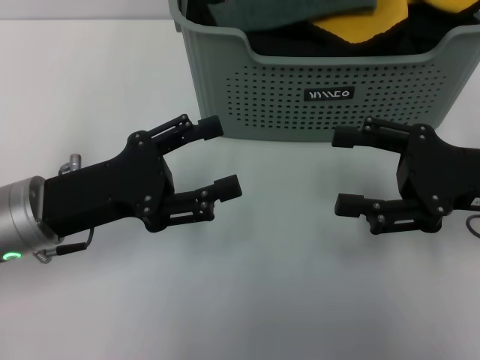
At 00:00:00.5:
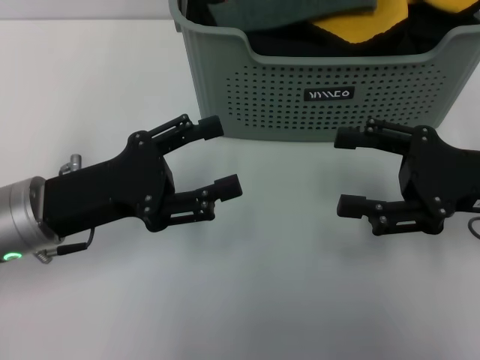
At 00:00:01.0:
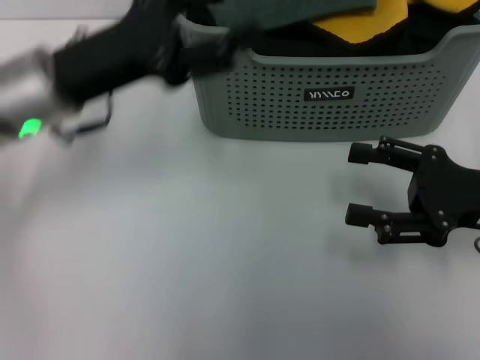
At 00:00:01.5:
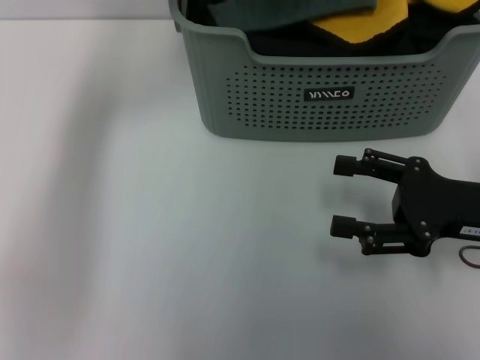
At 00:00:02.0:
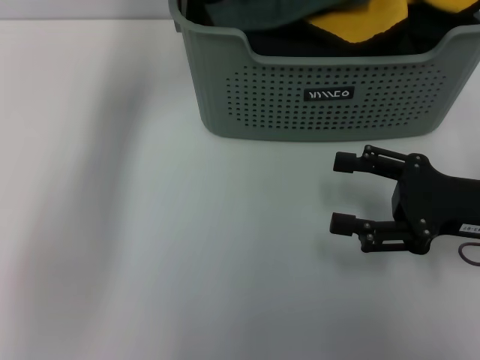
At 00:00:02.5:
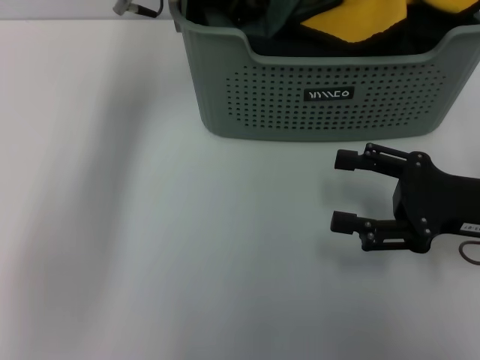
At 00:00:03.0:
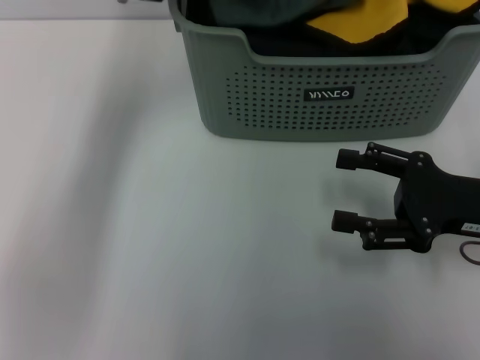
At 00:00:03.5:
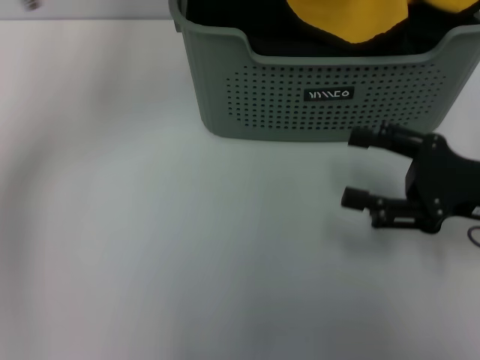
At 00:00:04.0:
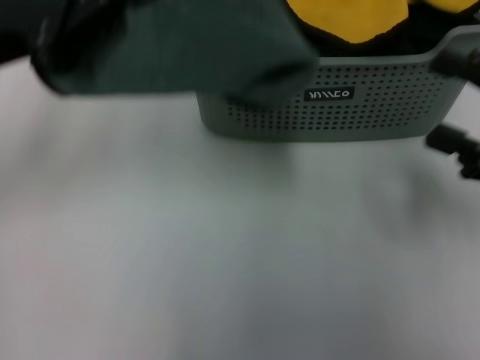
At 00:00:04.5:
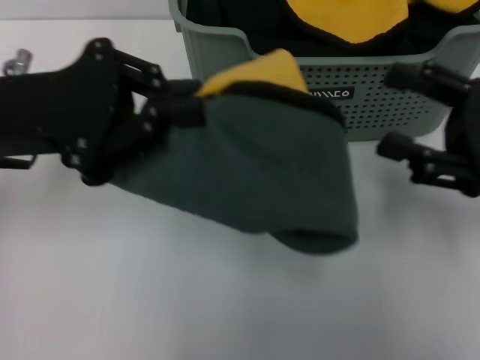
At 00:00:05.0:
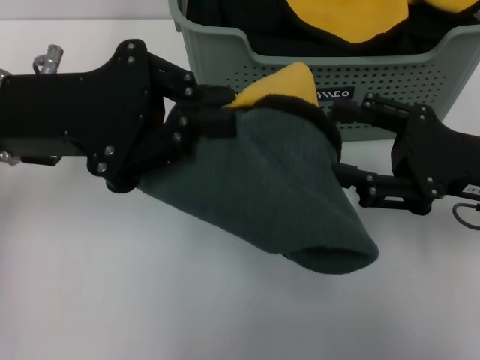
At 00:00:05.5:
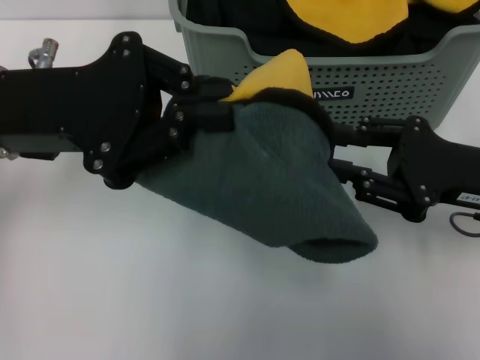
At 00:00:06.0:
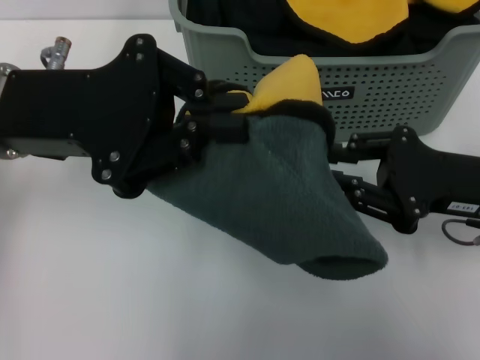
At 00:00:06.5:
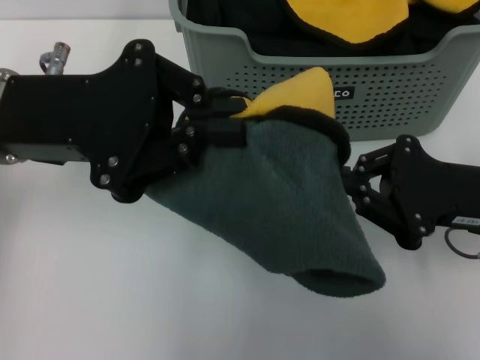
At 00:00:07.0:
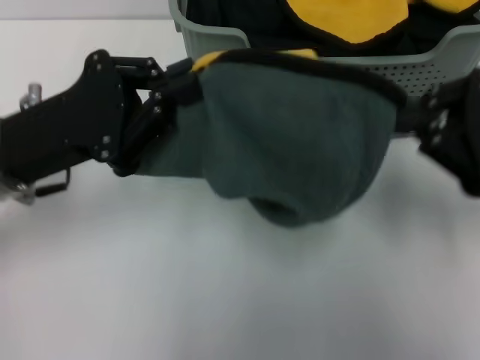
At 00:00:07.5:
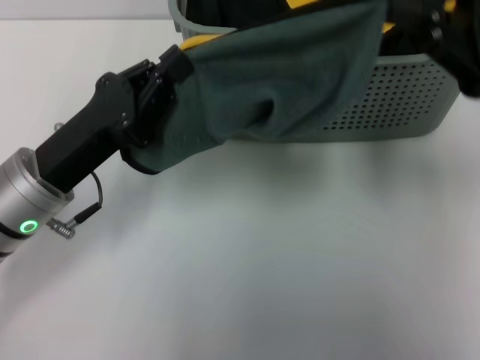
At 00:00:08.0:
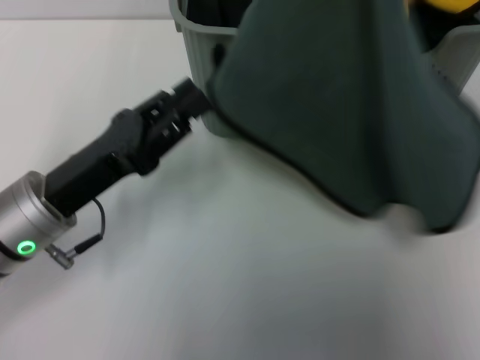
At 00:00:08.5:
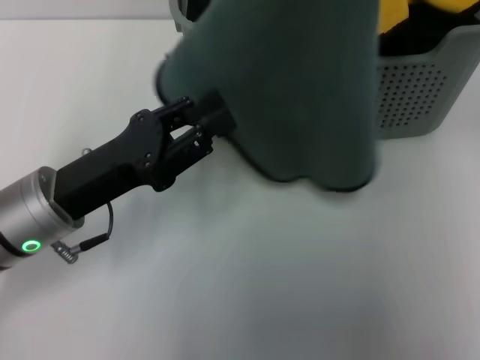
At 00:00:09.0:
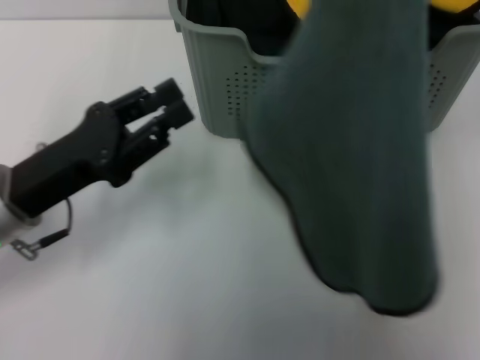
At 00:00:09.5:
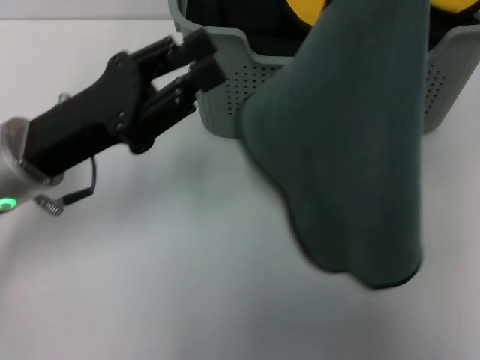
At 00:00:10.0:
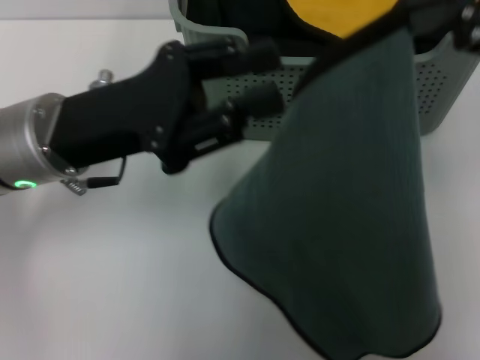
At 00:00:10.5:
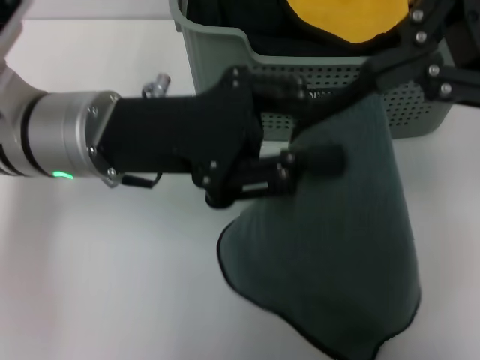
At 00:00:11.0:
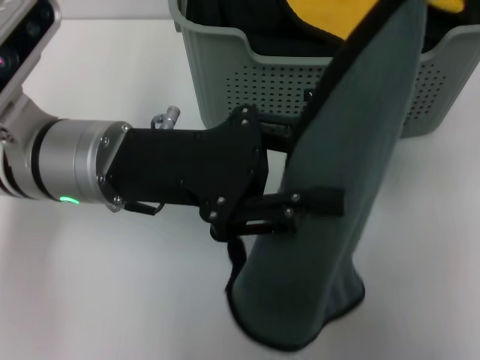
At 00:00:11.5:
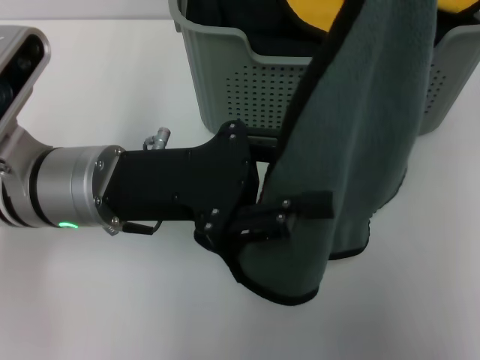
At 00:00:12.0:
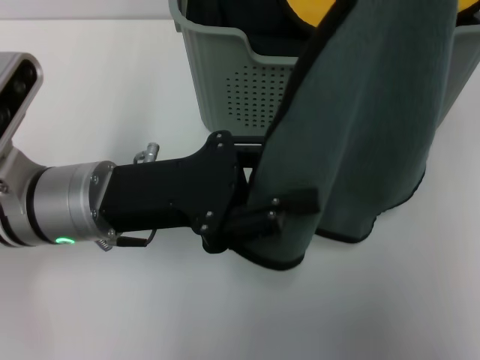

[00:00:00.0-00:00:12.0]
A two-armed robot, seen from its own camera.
Task of the whole recording: pick up the towel from the storage box and lay it flat on the table.
Step, 00:00:00.0 to 00:00:02.5: Pick up a towel with the left gripper.
Step, 00:00:03.0 to 00:00:06.0: Spread the towel flat with the left gripper.
00:00:00.0 to 00:00:02.0: The left gripper moves forward, upward and to the right, approximately 25 cm.
00:00:02.0 to 00:00:04.0: The left gripper heads backward and to the left, covering roughly 25 cm, and closes up; the right gripper shifts by about 5 cm.
00:00:04.0 to 00:00:06.0: The left gripper is displaced to the right by roughly 5 cm, while the right gripper heads to the left, covering approximately 5 cm, and closes up.
00:00:06.0 to 00:00:08.0: The right gripper is displaced upward by some 20 cm, and closes its fingers; the left gripper is displaced downward by roughly 15 cm.
00:00:08.0 to 00:00:10.0: The left gripper shifts about 10 cm upward.

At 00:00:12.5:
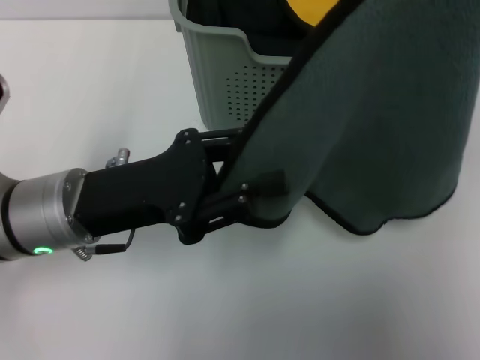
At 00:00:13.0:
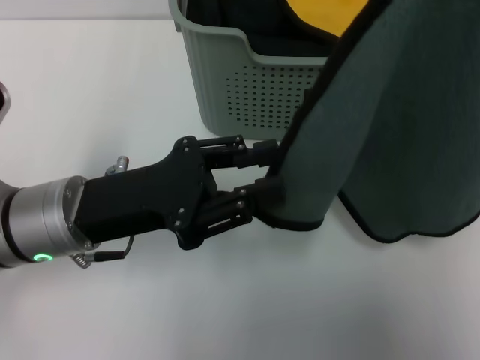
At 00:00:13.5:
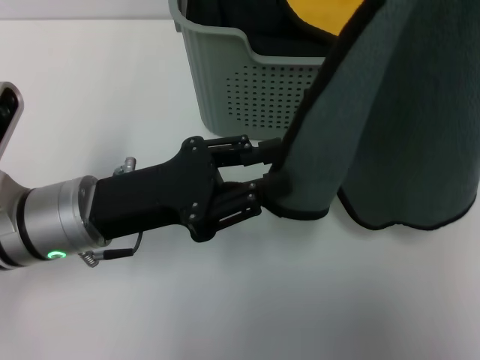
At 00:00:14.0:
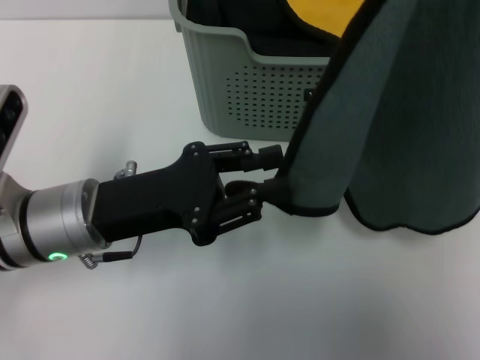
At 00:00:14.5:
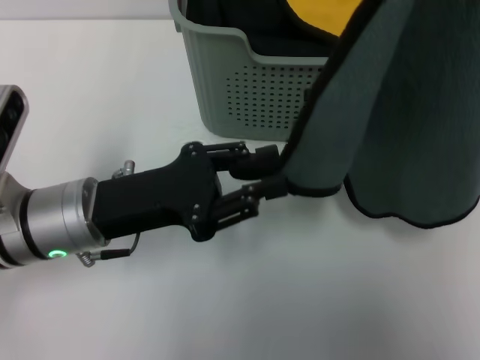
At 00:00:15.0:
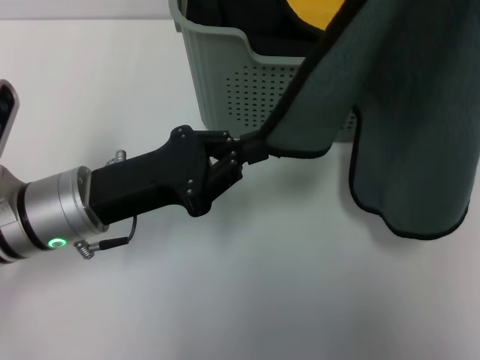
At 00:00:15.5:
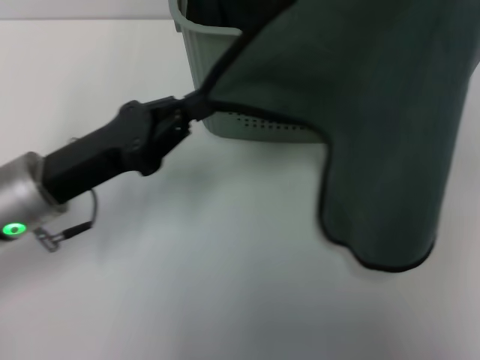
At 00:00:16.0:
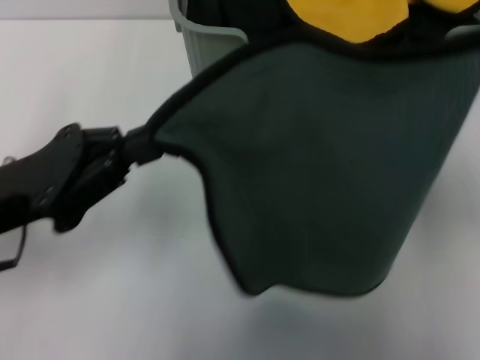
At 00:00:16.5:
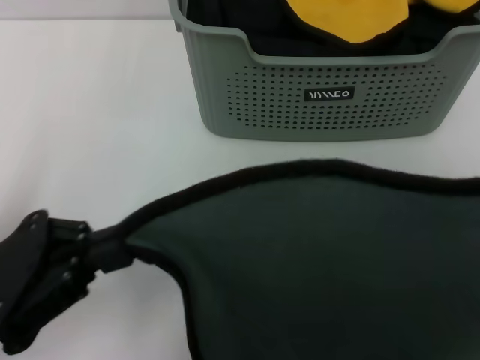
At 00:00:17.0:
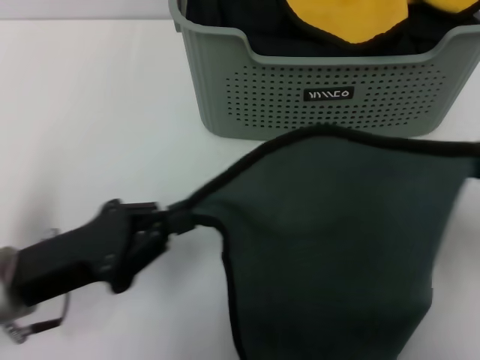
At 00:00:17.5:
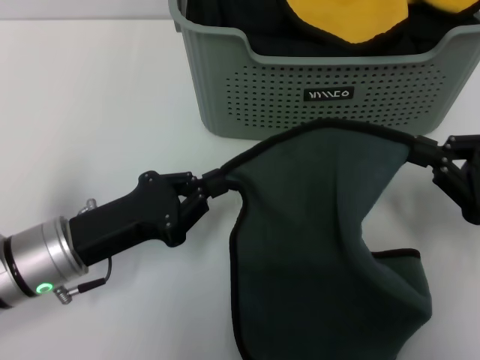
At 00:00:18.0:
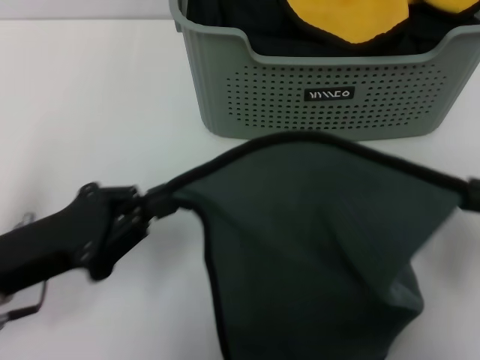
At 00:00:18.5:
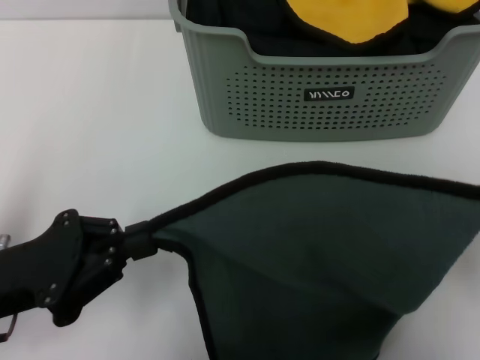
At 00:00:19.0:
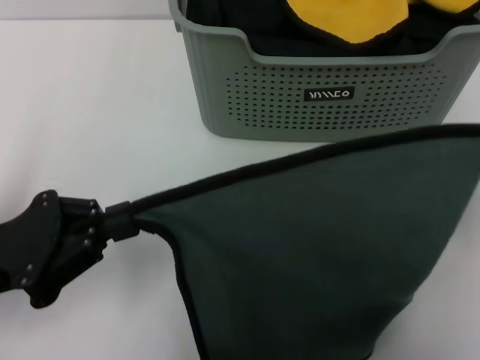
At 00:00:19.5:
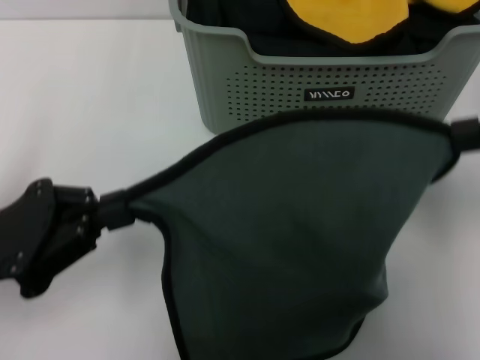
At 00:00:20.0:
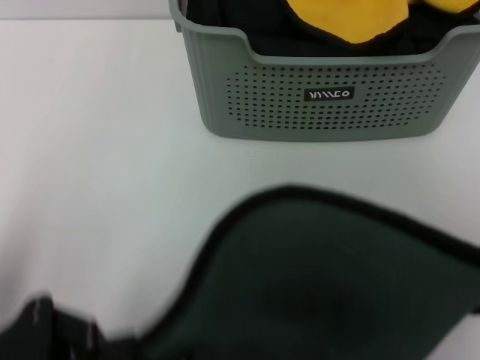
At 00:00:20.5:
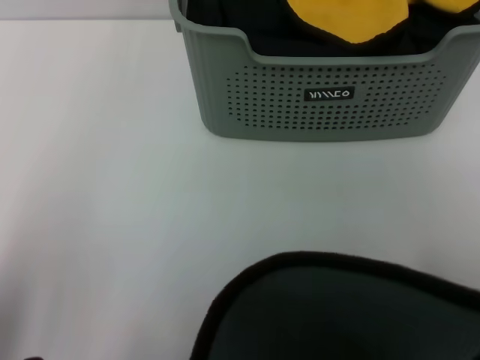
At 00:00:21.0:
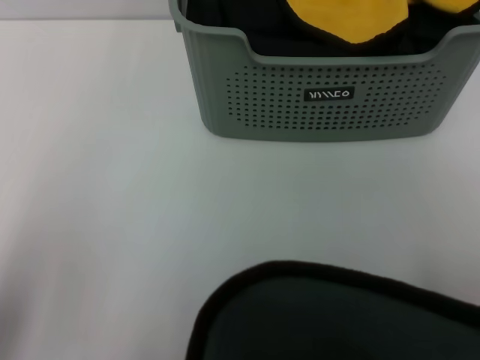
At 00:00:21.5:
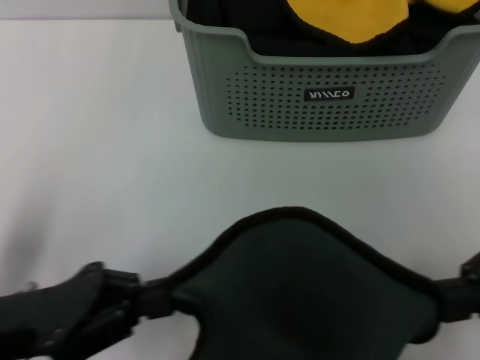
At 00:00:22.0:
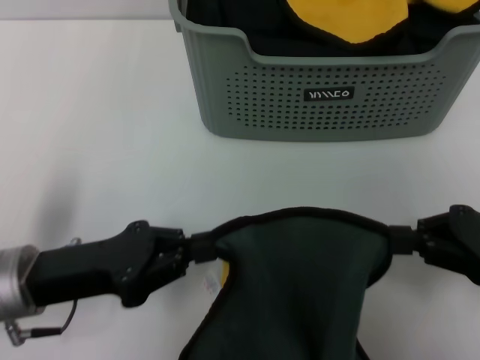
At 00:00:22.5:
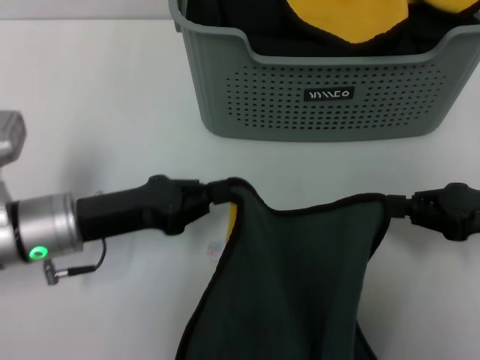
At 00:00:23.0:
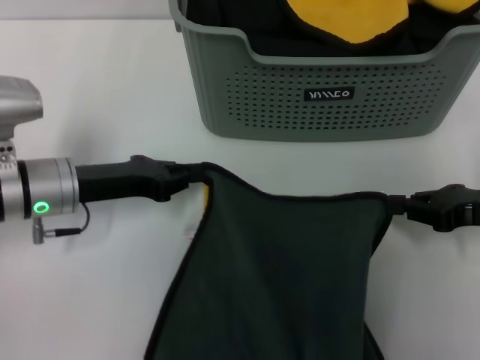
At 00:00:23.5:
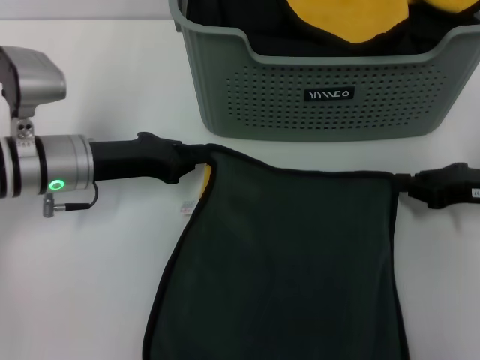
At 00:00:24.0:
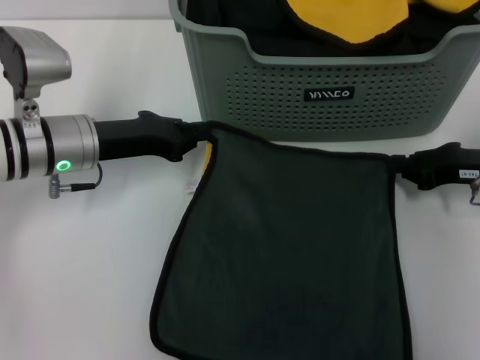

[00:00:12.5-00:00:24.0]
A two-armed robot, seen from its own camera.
Task of the whole recording: pick up the towel from the storage box and lay it flat on the table.
00:00:12.5 to 00:00:14.5: The grippers make only small movements.
00:00:14.5 to 00:00:16.5: The right gripper is displaced downward and backward by some 15 cm. The left gripper goes some 15 cm backward and to the left.
00:00:16.5 to 00:00:18.5: The right gripper goes downward and returns, some 15 cm each way.
00:00:18.5 to 00:00:20.0: The left gripper is displaced backward by about 5 cm. The right gripper heads upward, covering approximately 5 cm.
00:00:20.0 to 00:00:22.0: The right gripper goes some 15 cm downward, while the left gripper goes approximately 10 cm forward and downward.
00:00:22.0 to 00:00:24.0: Both grippers move forward, some 10 cm.

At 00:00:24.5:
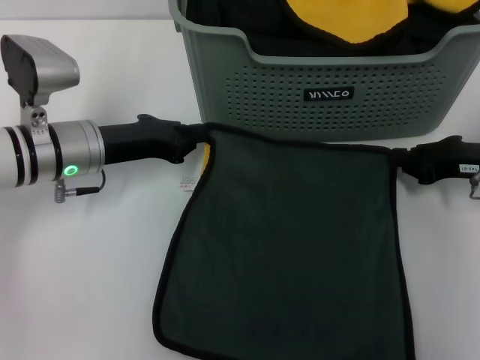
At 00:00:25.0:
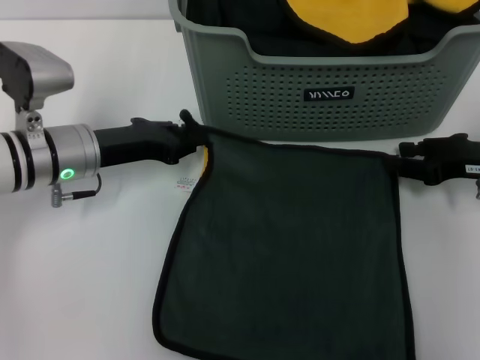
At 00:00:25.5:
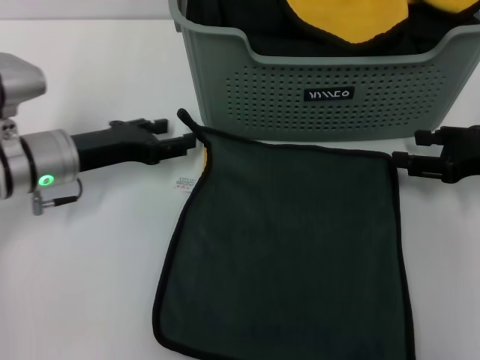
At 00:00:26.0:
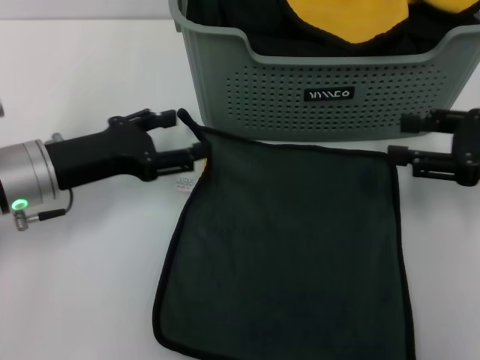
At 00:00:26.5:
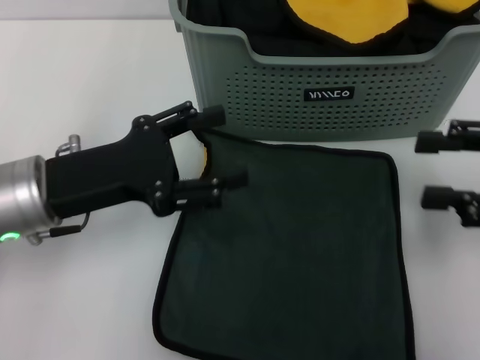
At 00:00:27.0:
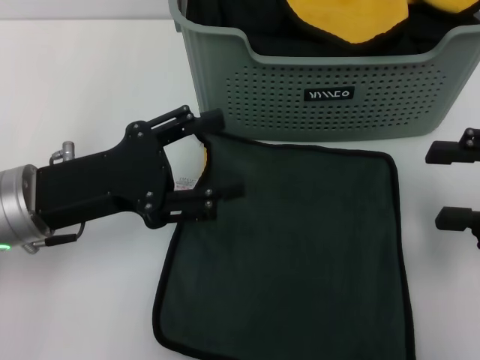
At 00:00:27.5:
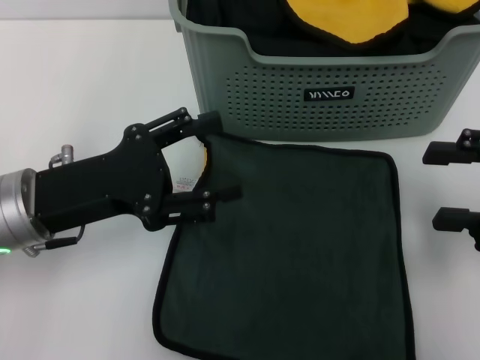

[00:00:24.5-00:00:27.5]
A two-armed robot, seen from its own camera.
Task of the whole recording: pick up the towel from the storage box and lay it flat on the table.
00:00:24.5 to 00:00:26.0: The left gripper is displaced backward by approximately 5 cm, and opens. The right gripper heads upward, covering roughly 5 cm, and opens.
00:00:26.0 to 00:00:27.5: The left gripper shifts by approximately 5 cm, while the right gripper goes about 5 cm backward.
